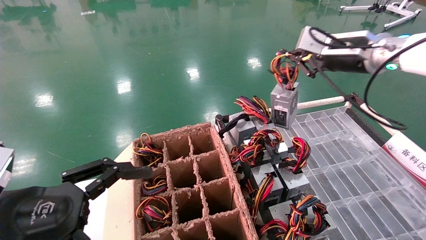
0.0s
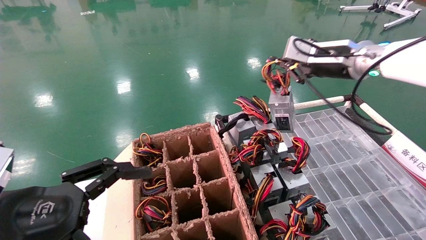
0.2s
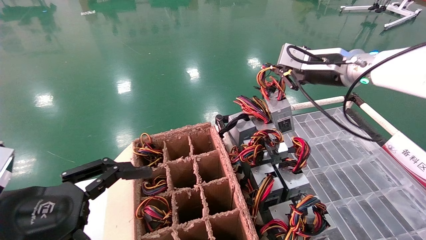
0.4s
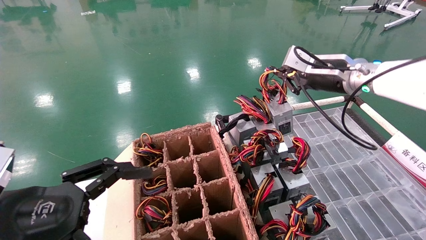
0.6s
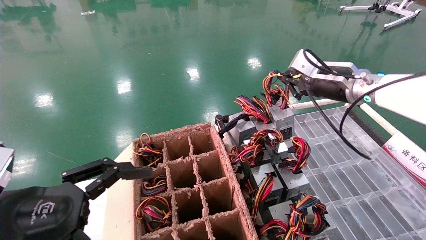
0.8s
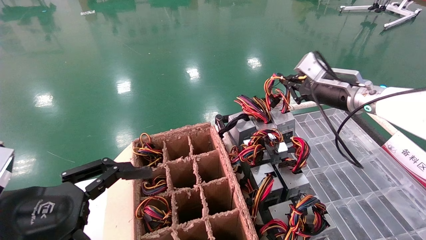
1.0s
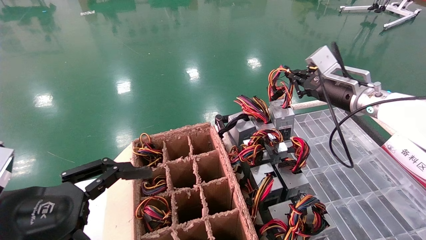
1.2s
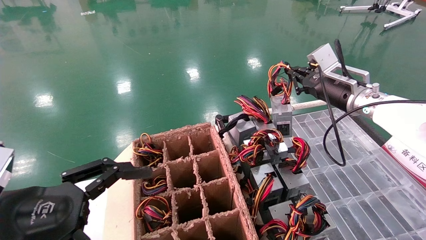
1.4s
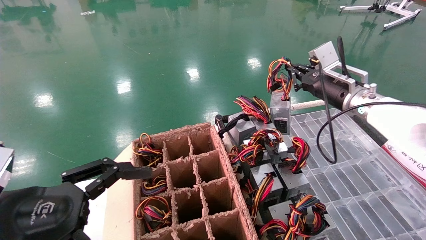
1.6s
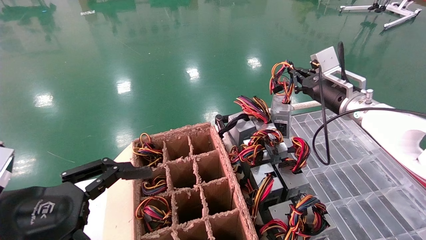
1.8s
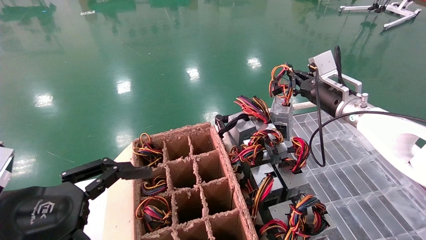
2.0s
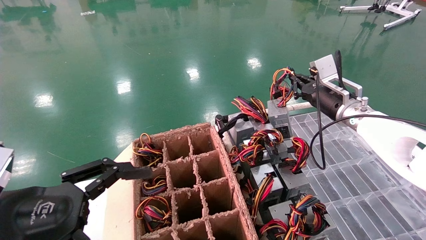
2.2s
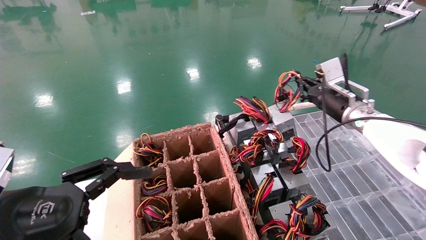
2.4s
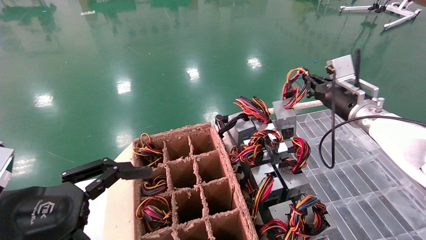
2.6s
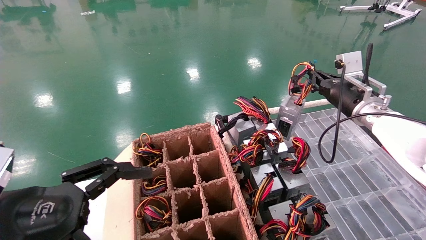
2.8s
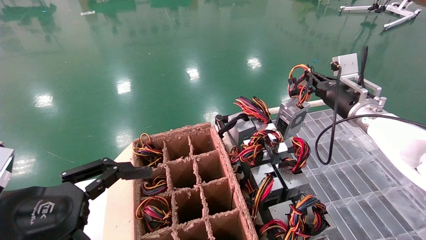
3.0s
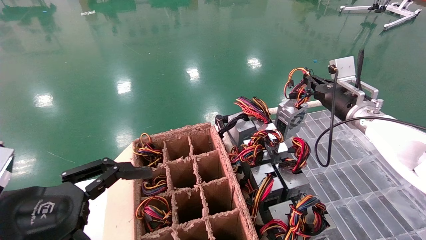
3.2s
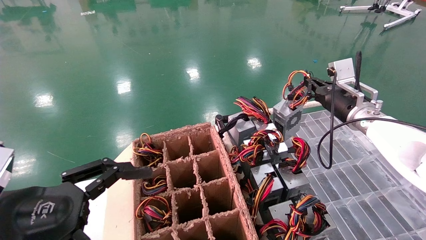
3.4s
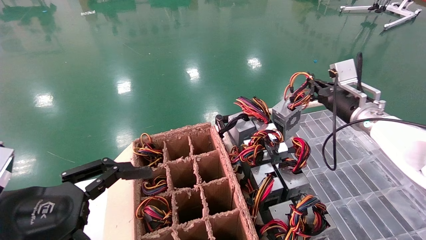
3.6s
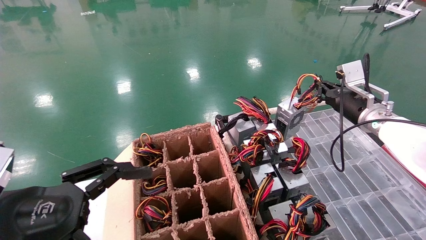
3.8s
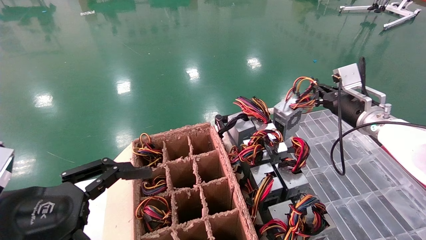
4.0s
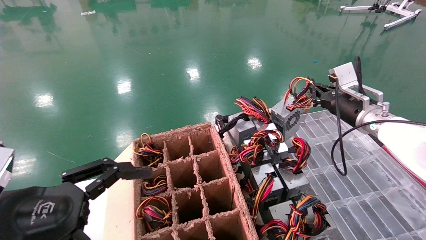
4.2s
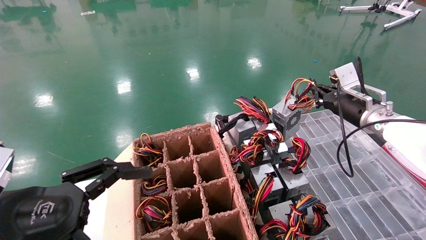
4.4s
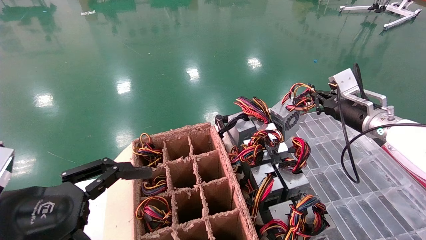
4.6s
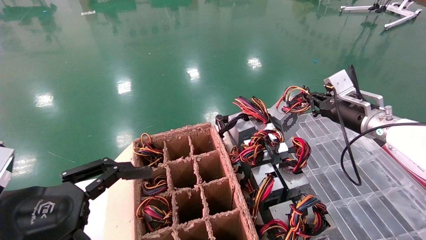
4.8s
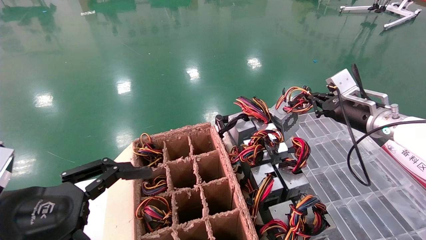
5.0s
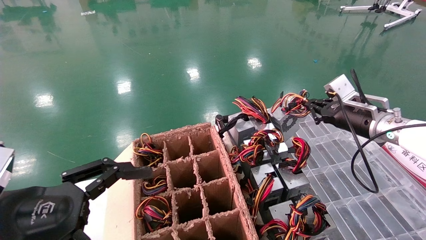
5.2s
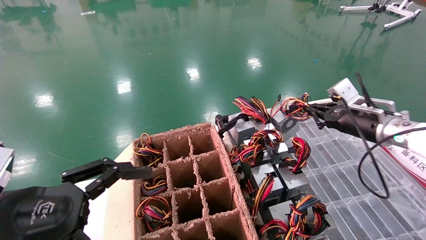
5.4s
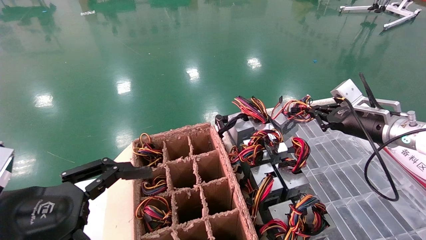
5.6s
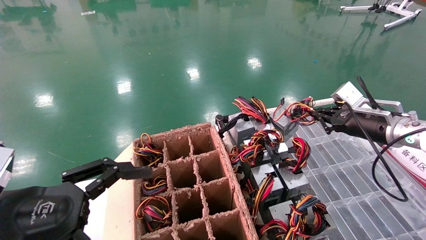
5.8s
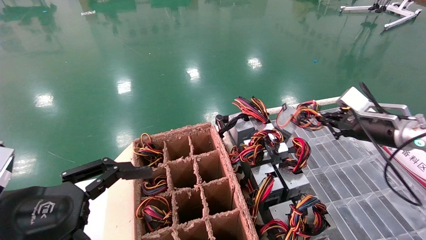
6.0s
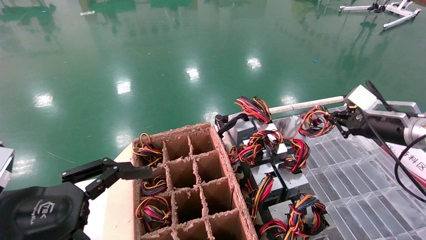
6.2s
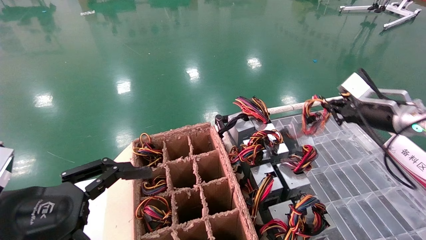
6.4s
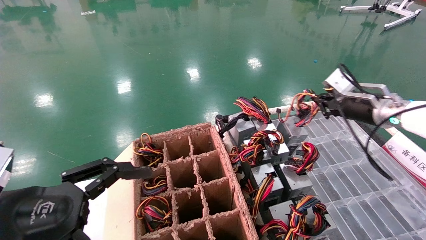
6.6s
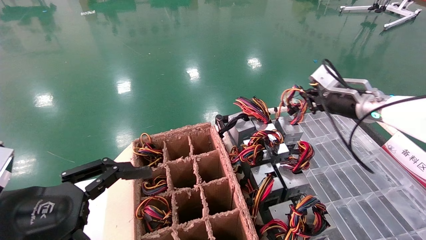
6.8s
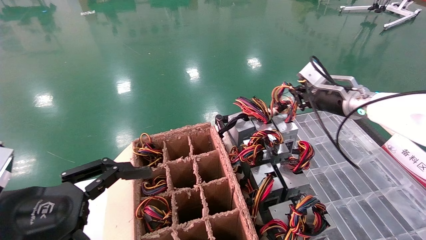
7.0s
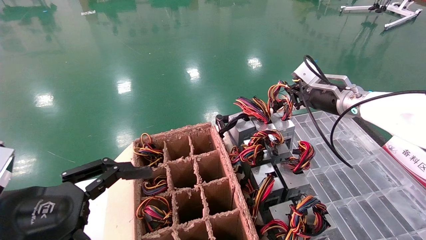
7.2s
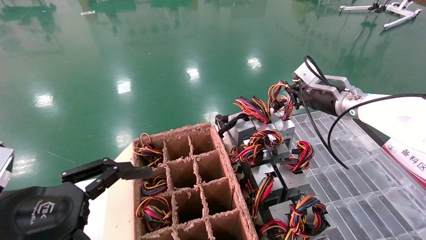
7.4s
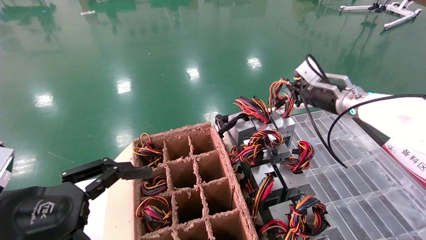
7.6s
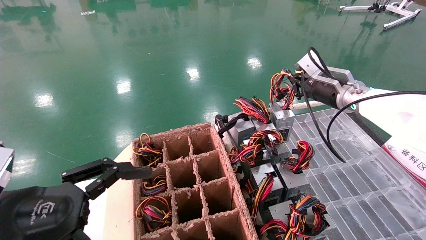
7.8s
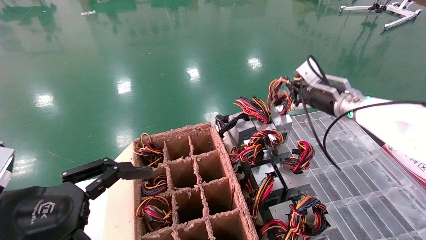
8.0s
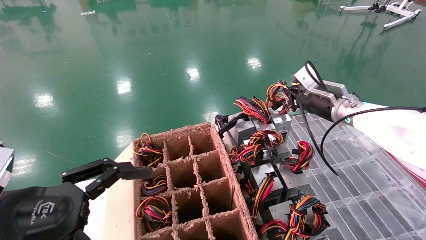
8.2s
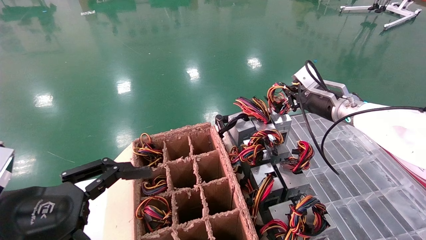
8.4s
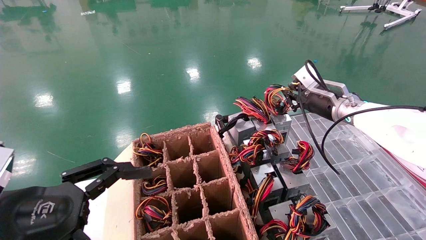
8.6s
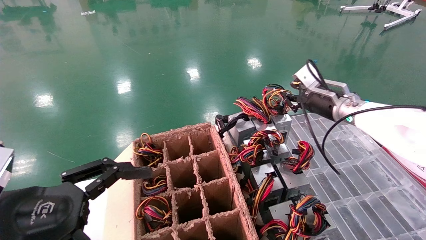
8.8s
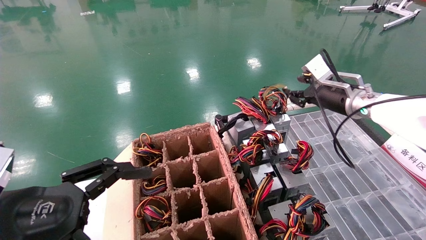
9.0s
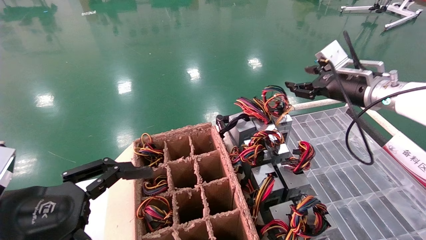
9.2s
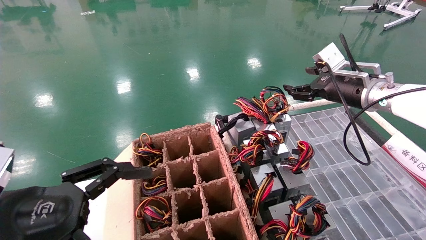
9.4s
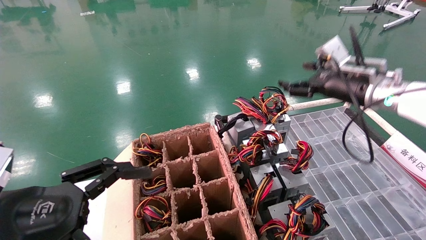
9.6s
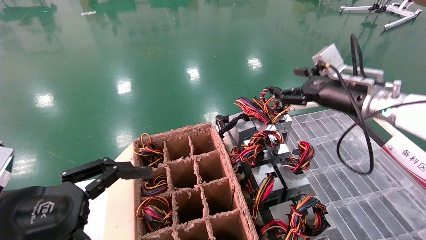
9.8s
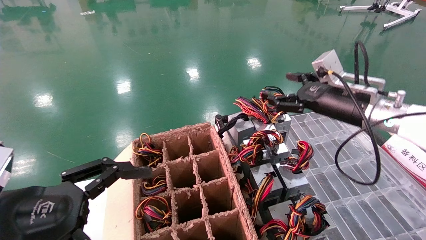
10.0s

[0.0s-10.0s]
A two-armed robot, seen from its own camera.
Step, 0.0s to 8.4s: Place the power supply on the operating table.
0.0s to 1.4s: The right gripper travels downward by roughly 10 cm.
2.8s to 4.2s: The grippers make only small movements.
4.2s to 5.8s: The right gripper shifts by roughly 5 cm.
5.8s to 7.2s: The right gripper travels to the left and upward by approximately 10 cm.
7.2s to 8.6s: The grippers stay close to where they were, moving slightly.
8.6s to 10.0s: The right gripper moves backward, some 5 cm, and opens.
